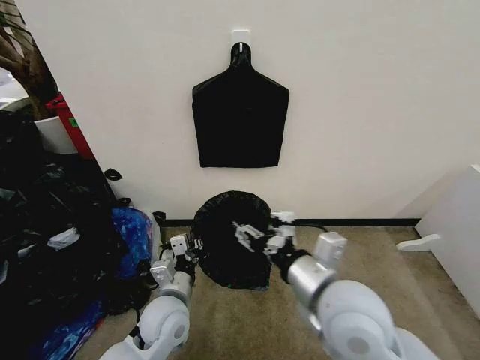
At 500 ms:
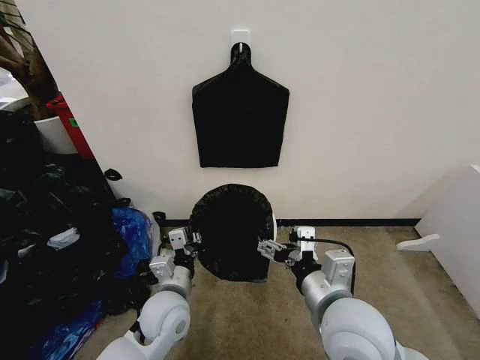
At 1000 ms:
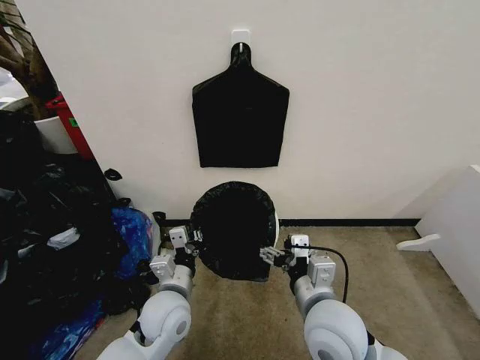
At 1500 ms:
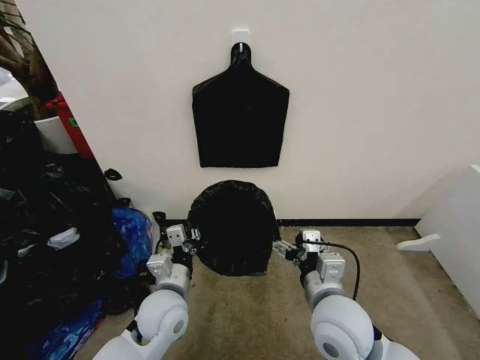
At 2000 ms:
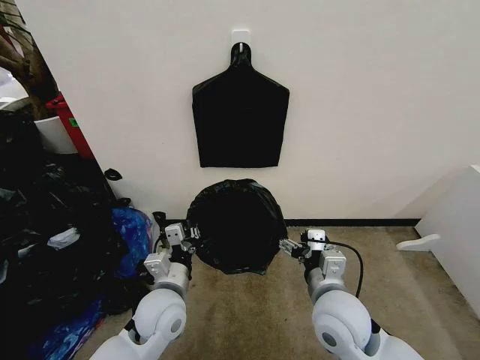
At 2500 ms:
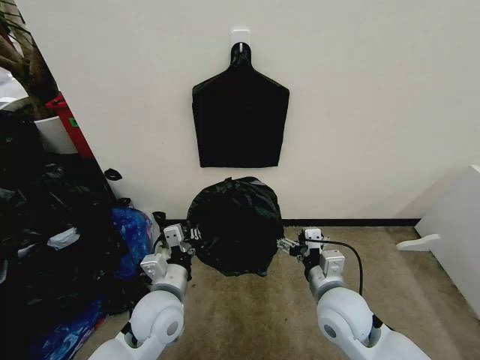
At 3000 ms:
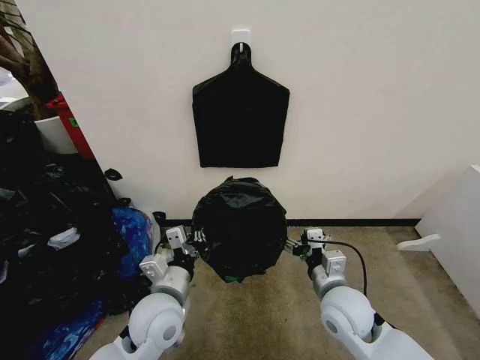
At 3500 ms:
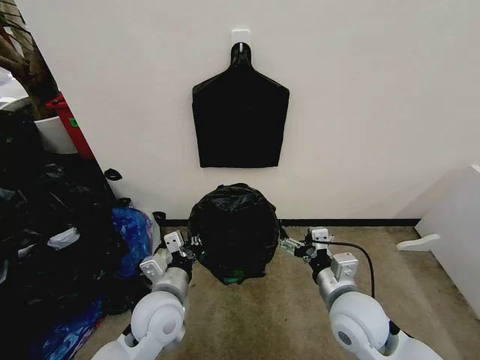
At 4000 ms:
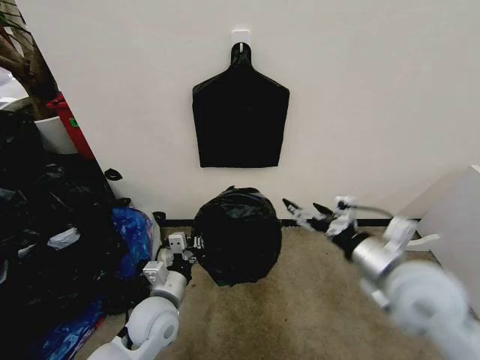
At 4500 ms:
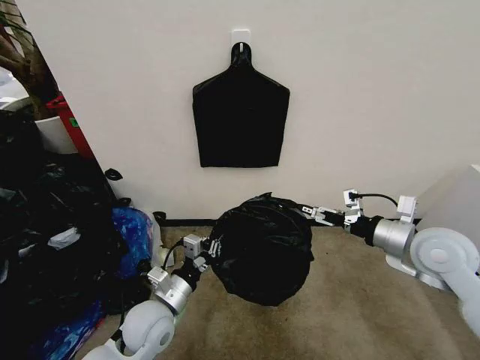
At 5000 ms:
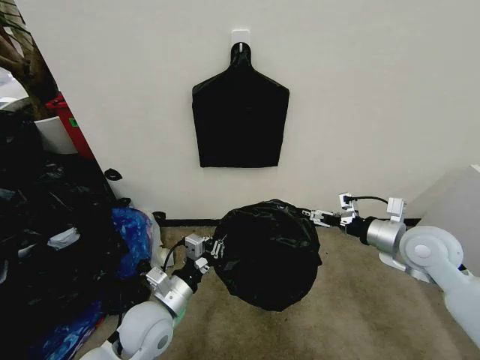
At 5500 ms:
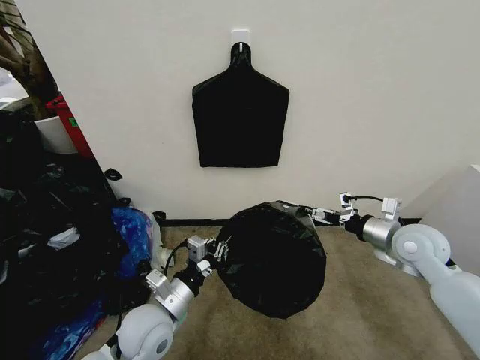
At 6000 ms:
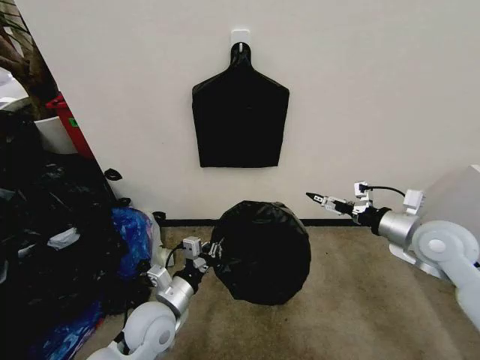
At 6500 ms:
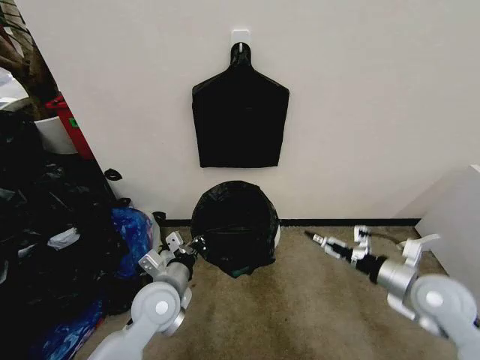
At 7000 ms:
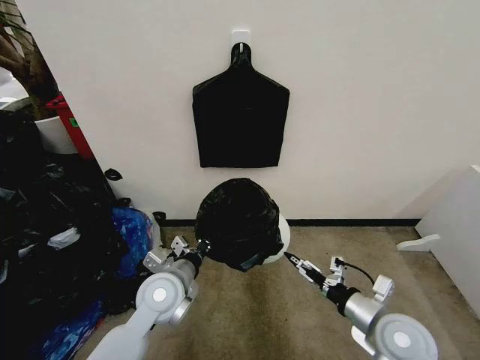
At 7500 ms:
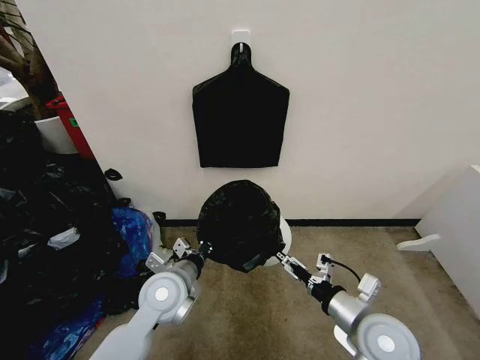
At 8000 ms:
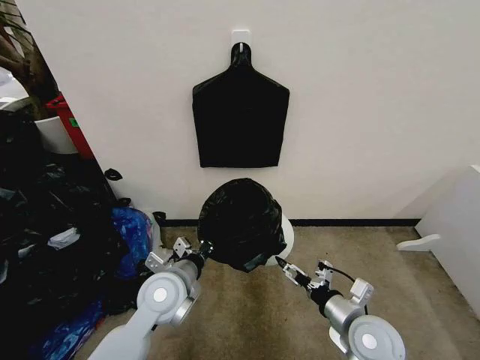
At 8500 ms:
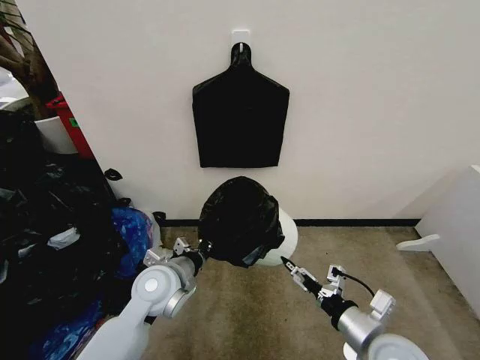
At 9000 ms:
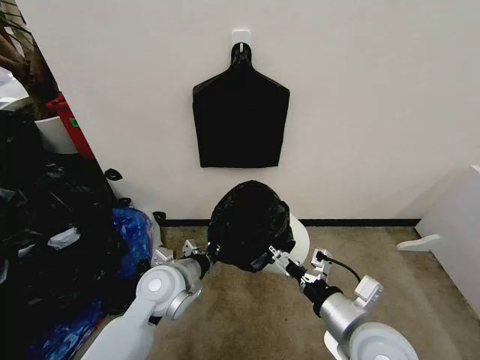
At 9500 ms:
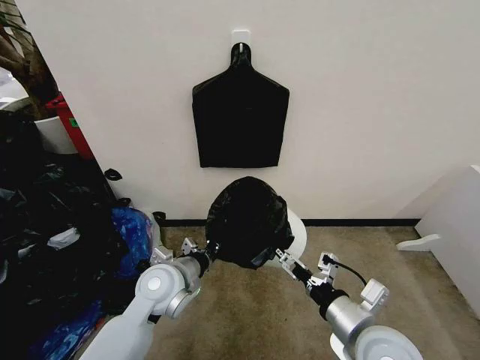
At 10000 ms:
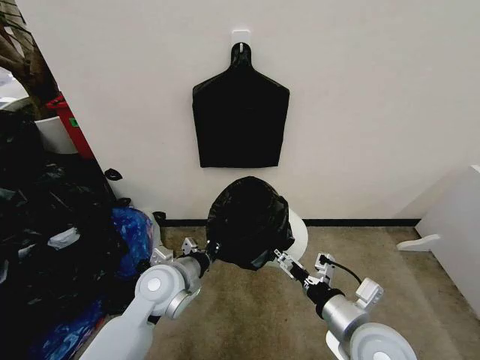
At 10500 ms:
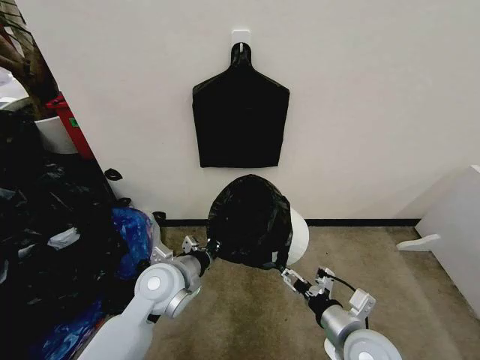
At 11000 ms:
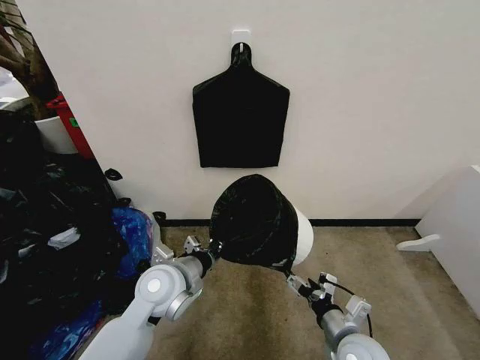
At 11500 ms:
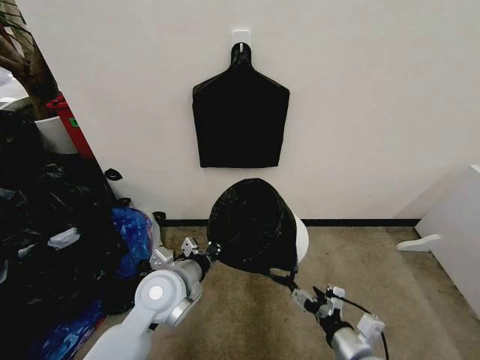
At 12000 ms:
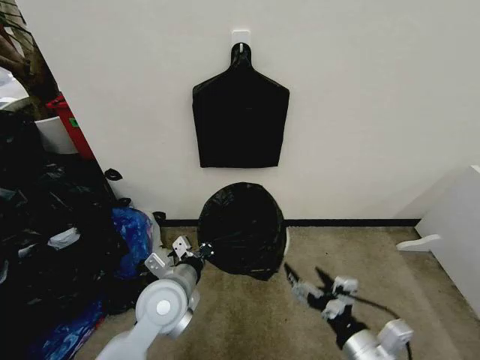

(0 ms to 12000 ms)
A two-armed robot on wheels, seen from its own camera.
Task of the whole recording: Place the garbage bag over the trash bin.
0 ms - 2000 ms: The right gripper travels downward by about 10 cm, and opens up.
2000 ms - 4000 ms: The right gripper goes approximately 15 cm to the right and upward.
4000 ms - 6000 ms: The right gripper shifts some 15 cm to the right and forward.
6000 ms - 8000 ms: The right gripper heads downward, backward and to the left, covering about 25 cm. The left gripper moves upward, about 5 cm.
8000 ms - 10000 ms: The right gripper travels upward by about 5 cm.
10000 ms - 12000 ms: The right gripper is displaced backward by approximately 5 cm.

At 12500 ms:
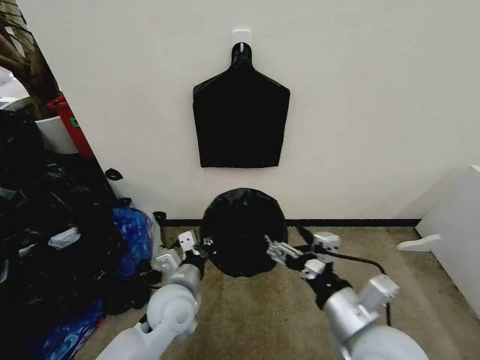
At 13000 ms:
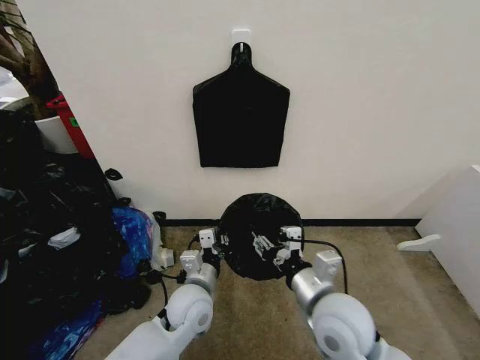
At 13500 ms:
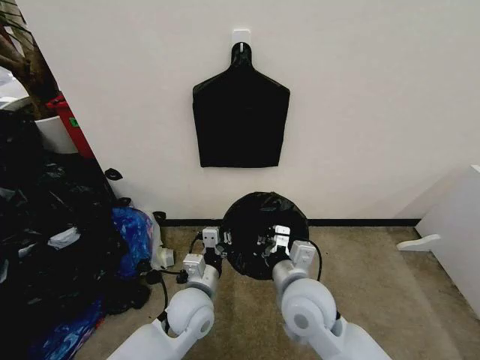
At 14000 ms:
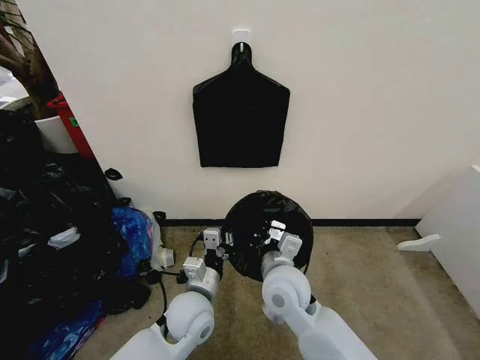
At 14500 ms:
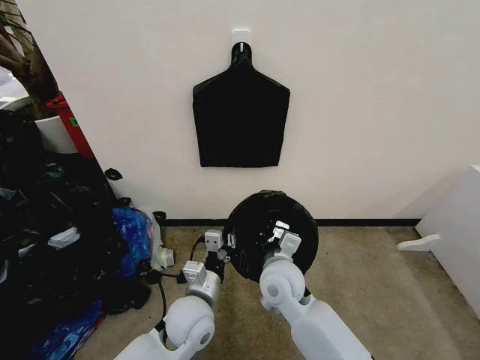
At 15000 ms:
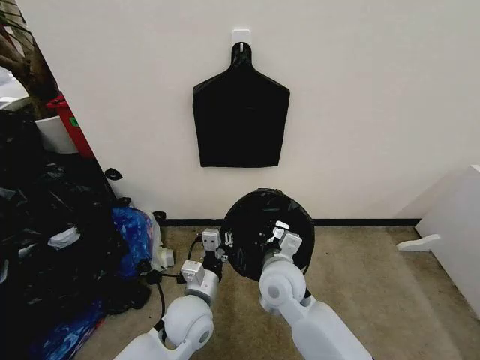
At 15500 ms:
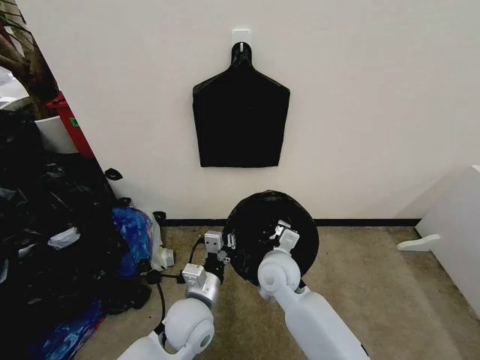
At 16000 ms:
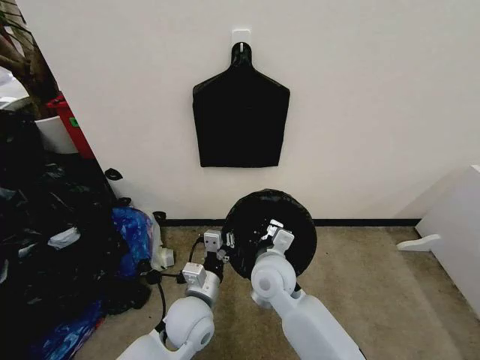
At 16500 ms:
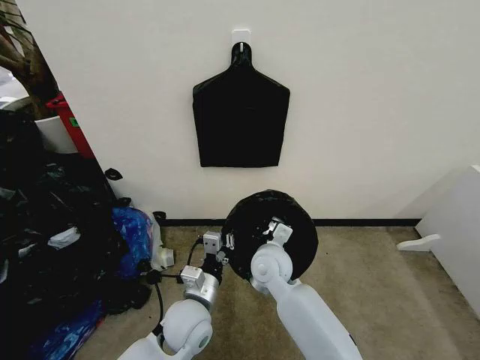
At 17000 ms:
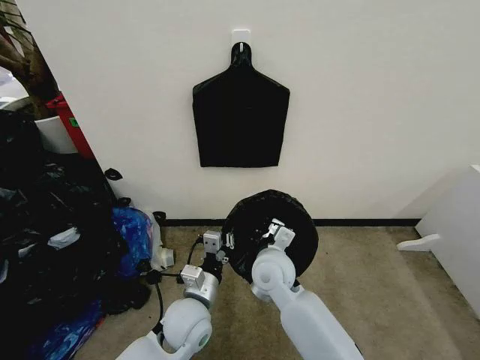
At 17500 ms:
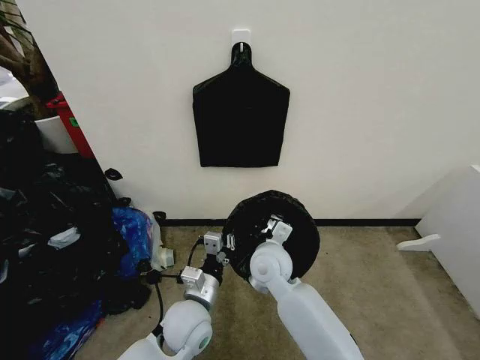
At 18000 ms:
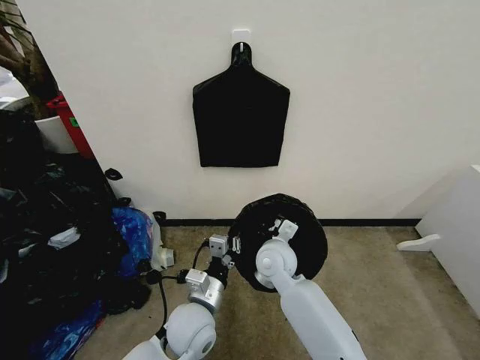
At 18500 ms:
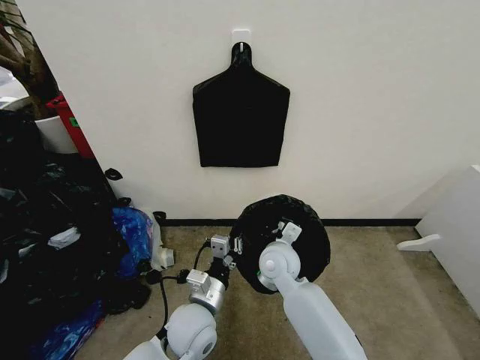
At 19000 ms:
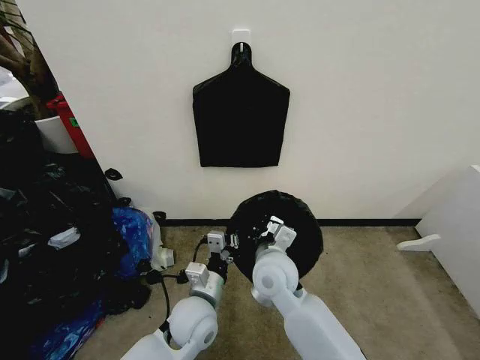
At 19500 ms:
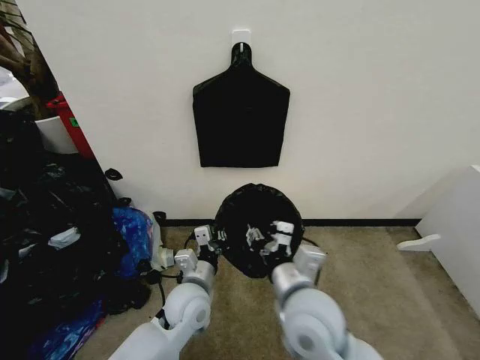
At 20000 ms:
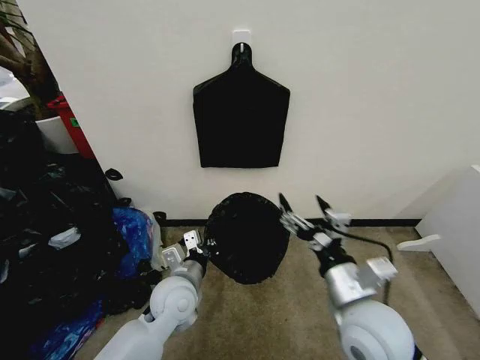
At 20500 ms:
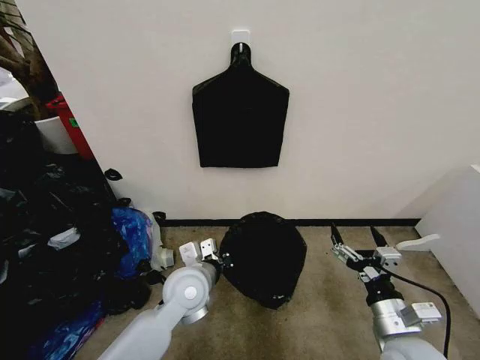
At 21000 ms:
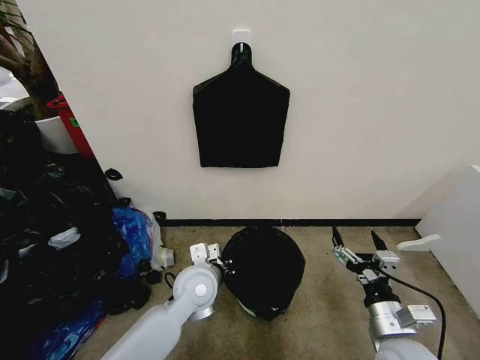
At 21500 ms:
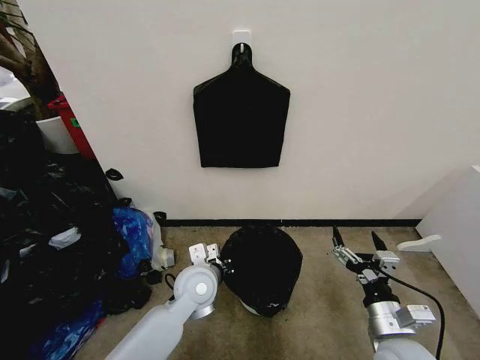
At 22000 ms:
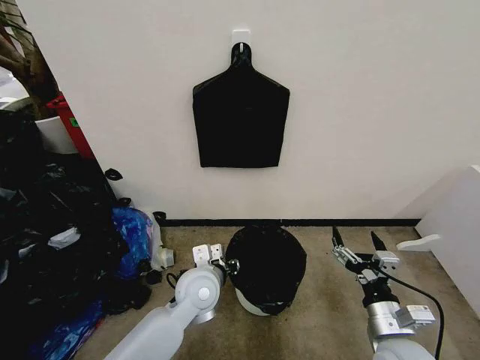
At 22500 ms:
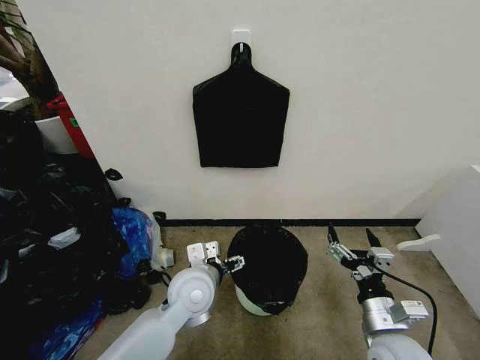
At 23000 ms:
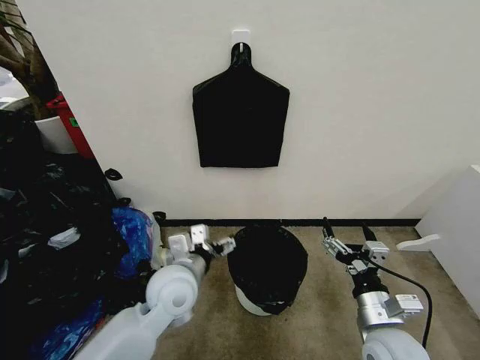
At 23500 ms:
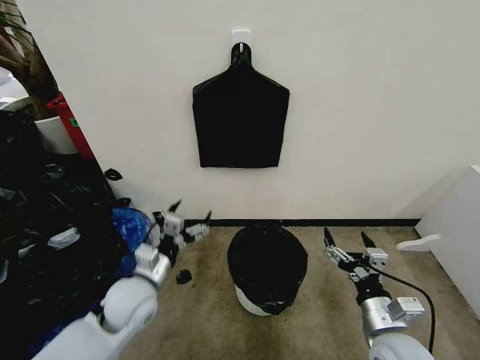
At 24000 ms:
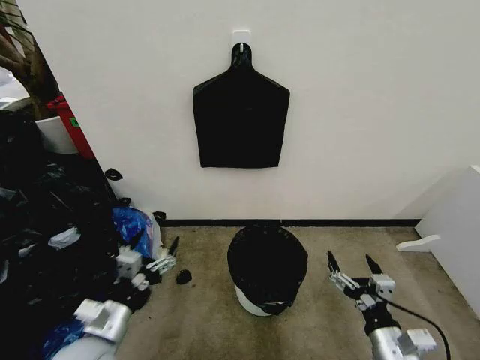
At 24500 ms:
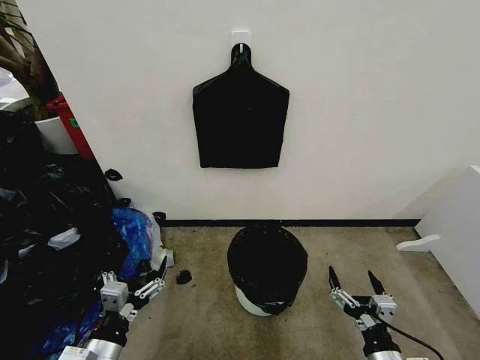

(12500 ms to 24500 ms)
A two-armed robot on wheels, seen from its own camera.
Task of the whole recording: Place the garbage bag over the trash bin.
12500 ms - 14500 ms: The right gripper heads forward, to the left and downward, covering some 20 cm, and closes.
14500 ms - 16500 ms: The right gripper ends up roughly 5 cm from where it was.
16500 ms - 18500 ms: The grippers stay close to where they were, moving slightly.
18500 ms - 20500 ms: The left gripper heads forward, covering roughly 5 cm. Meanwhile the right gripper travels to the right and backward by roughly 30 cm, and opens up.
20500 ms - 22500 ms: The left gripper opens.
22500 ms - 24500 ms: The left gripper shifts some 25 cm backward and to the left. Meanwhile the right gripper shifts approximately 10 cm backward.
